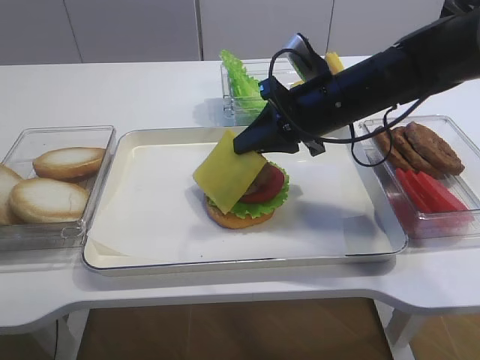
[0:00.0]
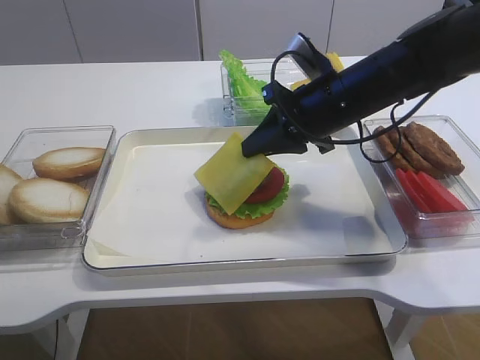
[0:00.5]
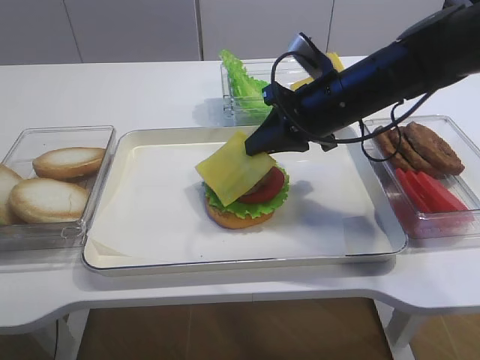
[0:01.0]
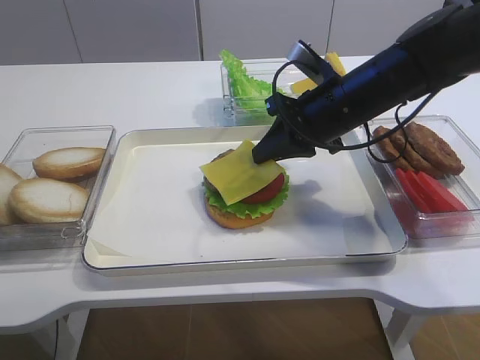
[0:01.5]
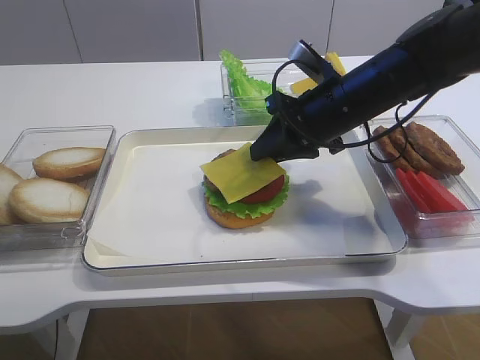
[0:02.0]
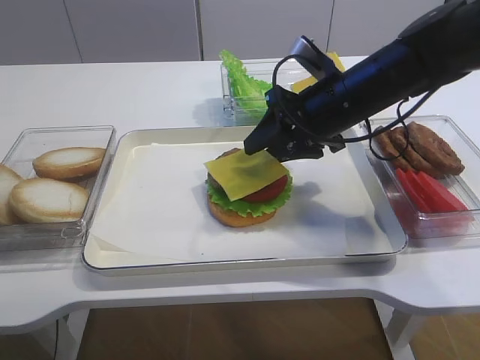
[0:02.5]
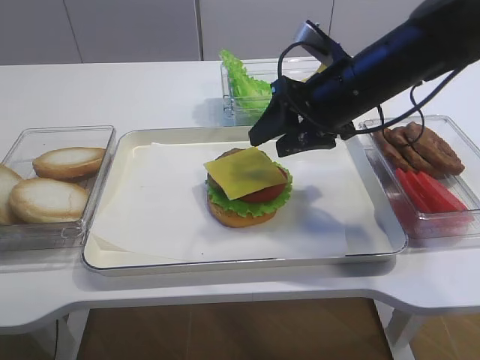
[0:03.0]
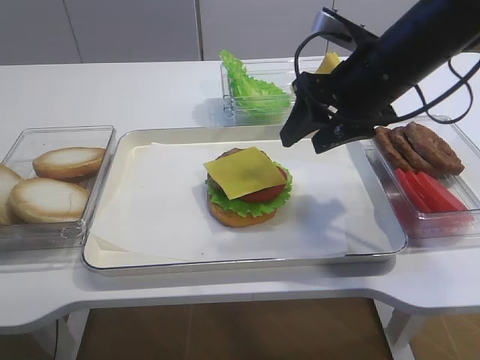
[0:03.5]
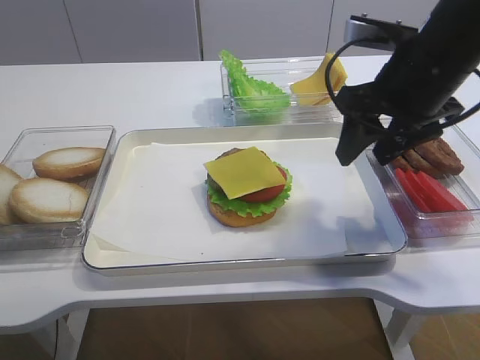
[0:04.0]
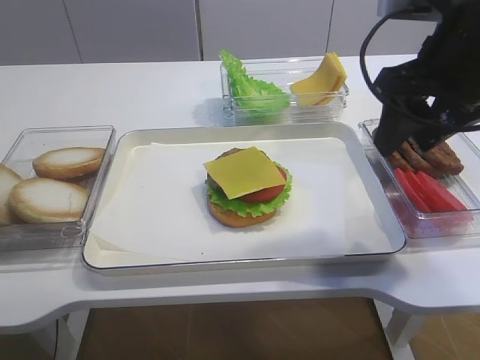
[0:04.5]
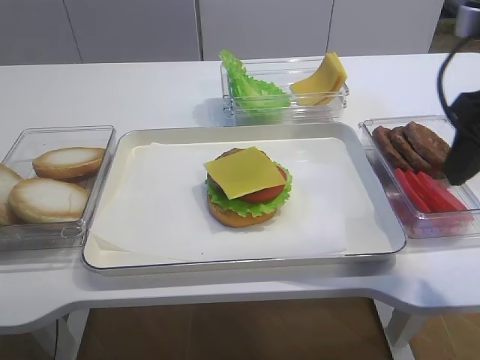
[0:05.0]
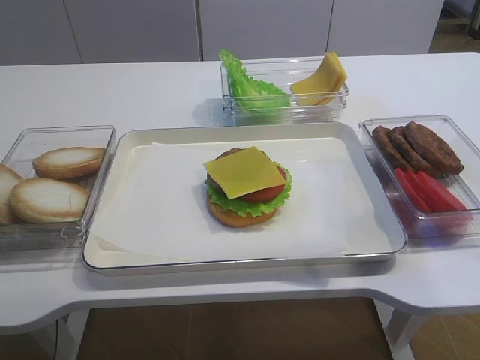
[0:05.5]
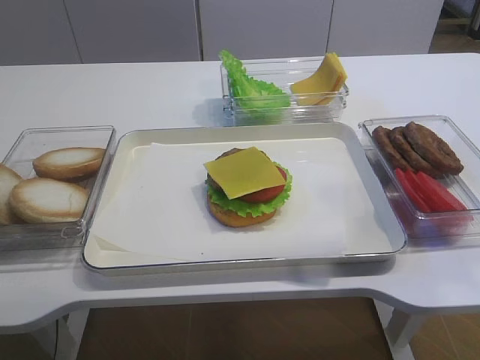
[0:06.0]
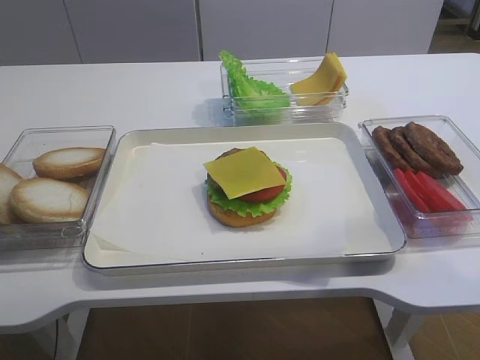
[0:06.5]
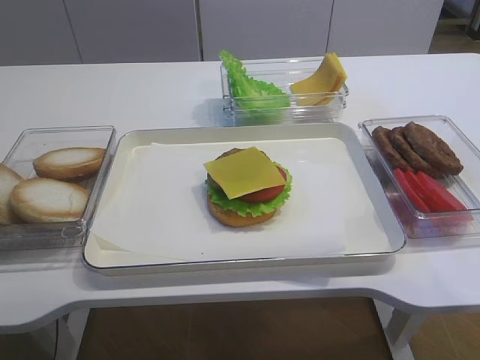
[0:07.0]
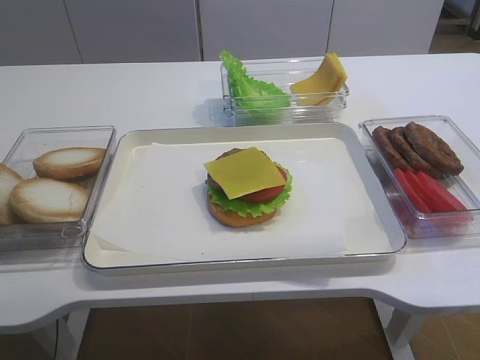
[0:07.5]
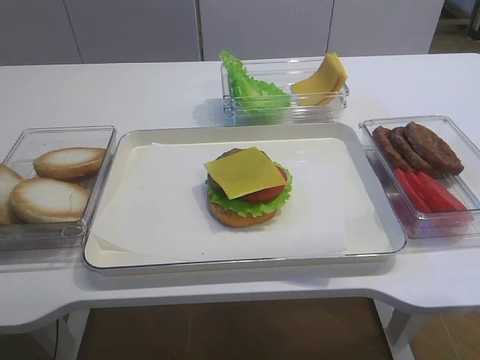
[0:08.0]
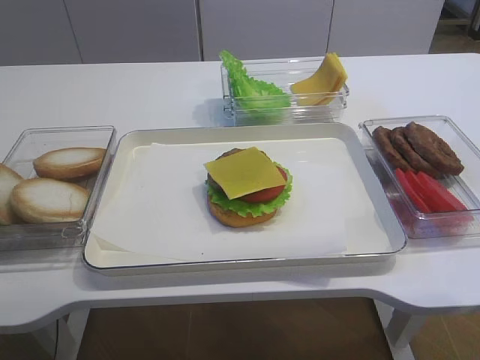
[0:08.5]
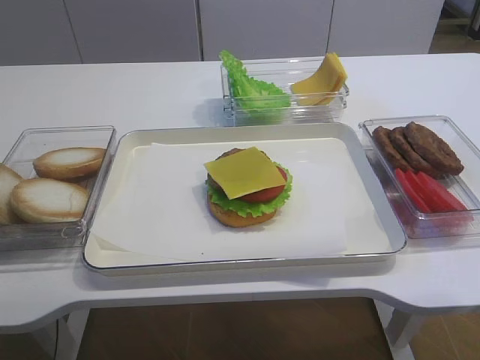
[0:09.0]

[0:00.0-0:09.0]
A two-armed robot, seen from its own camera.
Step, 0:00.0 to 0:03.0: Place the cheese slice on the cutlet with the right gripper.
0:00.0 to 0:02.0: The right gripper opens.
0:02.0 to 0:04.5: The right gripper shifts roughly 15 cm upward, backward and to the right, and opens up.
0:04.5 to 0:07.0: The right gripper goes roughly 30 cm backward.

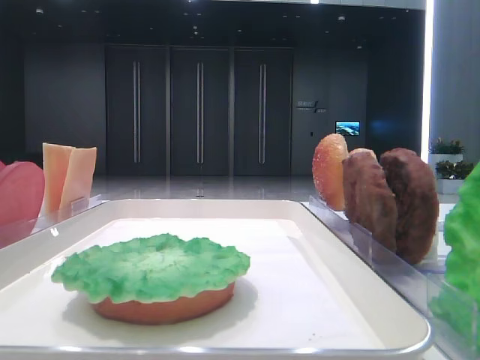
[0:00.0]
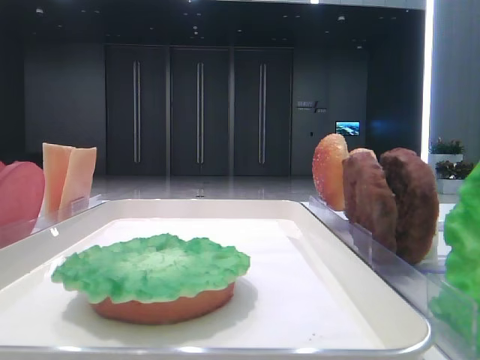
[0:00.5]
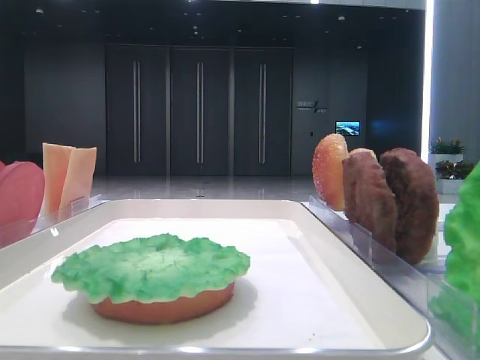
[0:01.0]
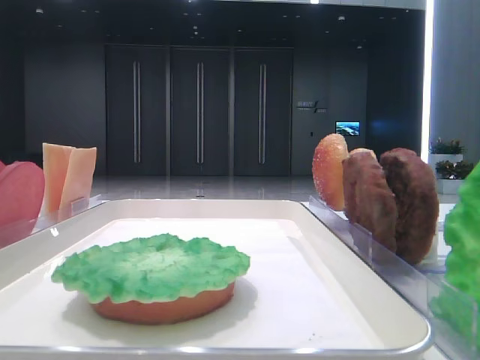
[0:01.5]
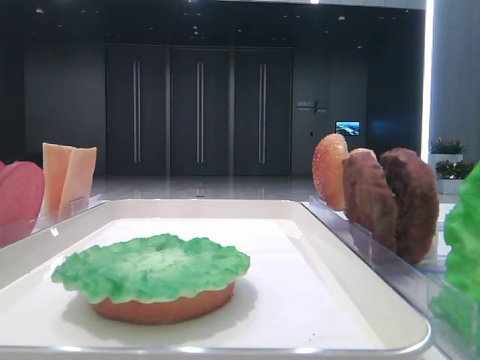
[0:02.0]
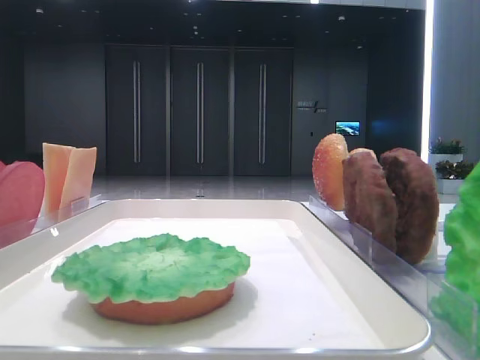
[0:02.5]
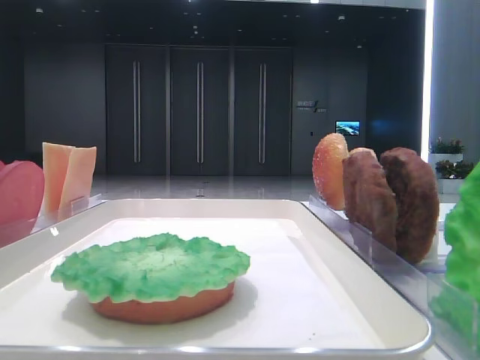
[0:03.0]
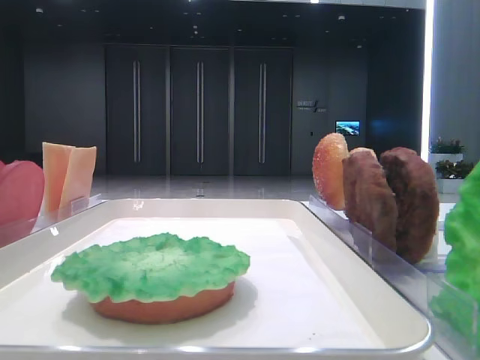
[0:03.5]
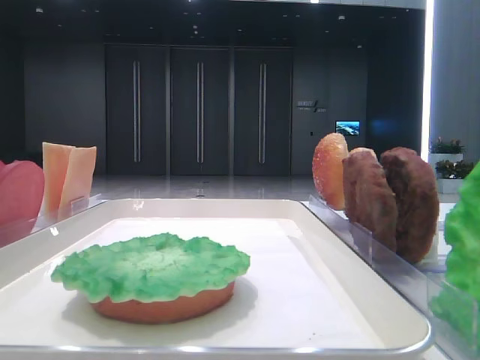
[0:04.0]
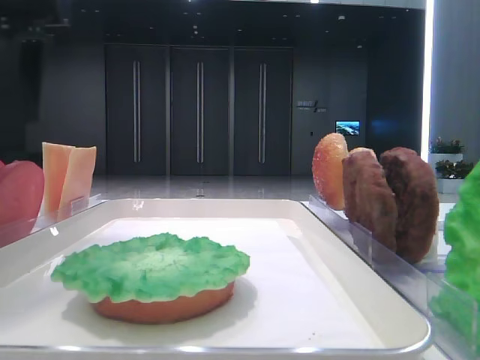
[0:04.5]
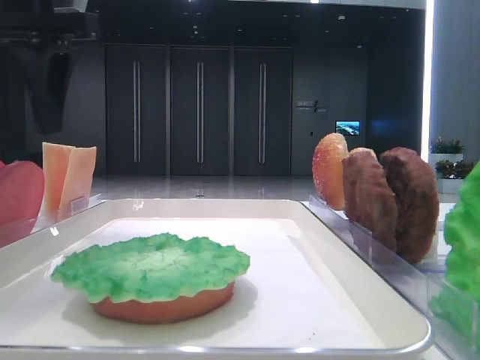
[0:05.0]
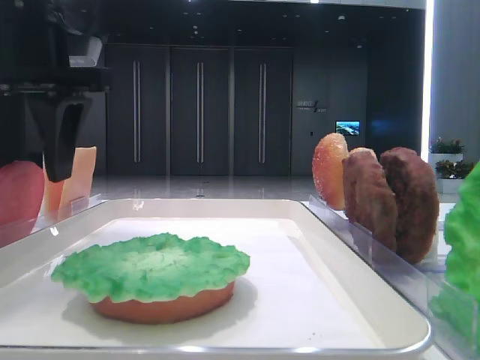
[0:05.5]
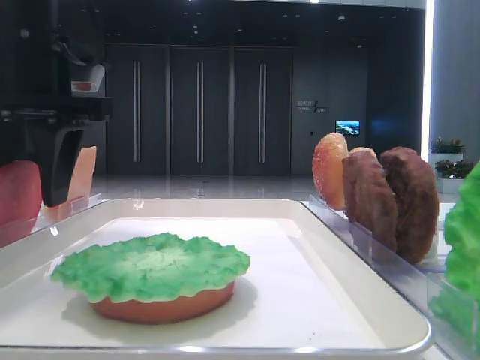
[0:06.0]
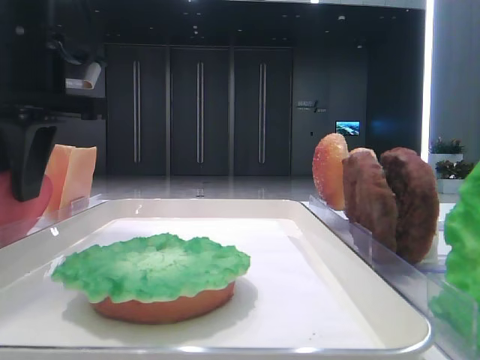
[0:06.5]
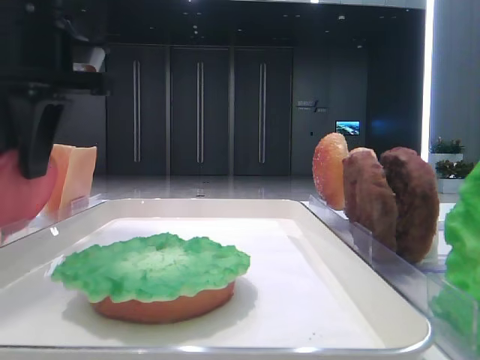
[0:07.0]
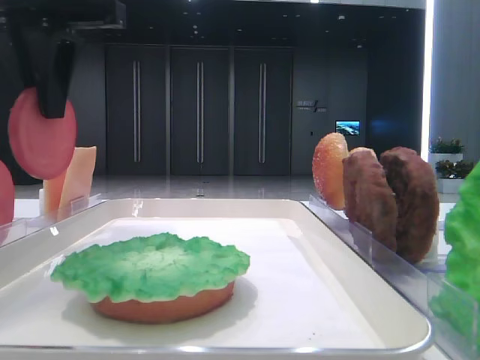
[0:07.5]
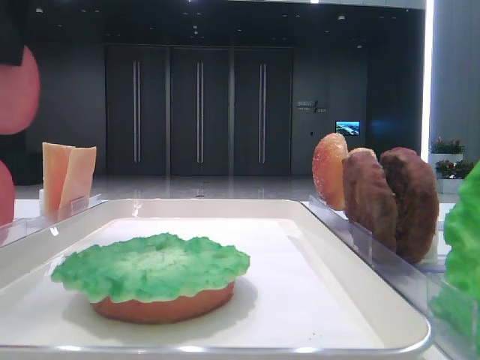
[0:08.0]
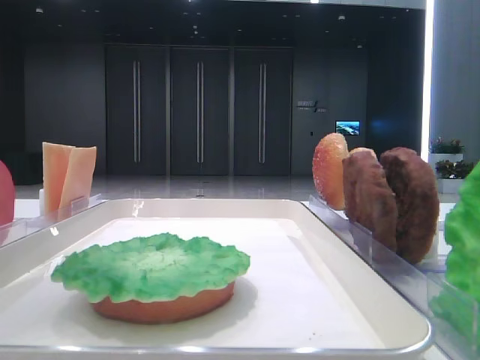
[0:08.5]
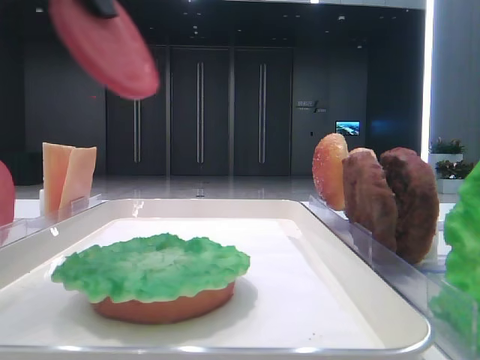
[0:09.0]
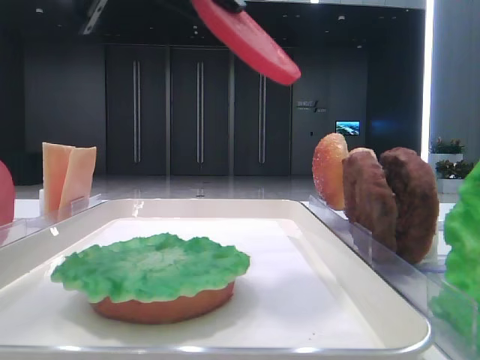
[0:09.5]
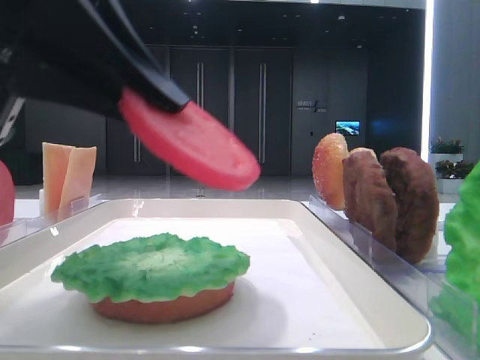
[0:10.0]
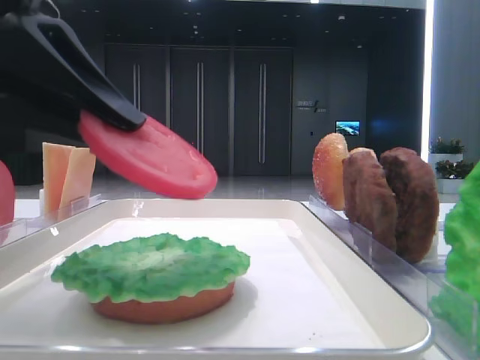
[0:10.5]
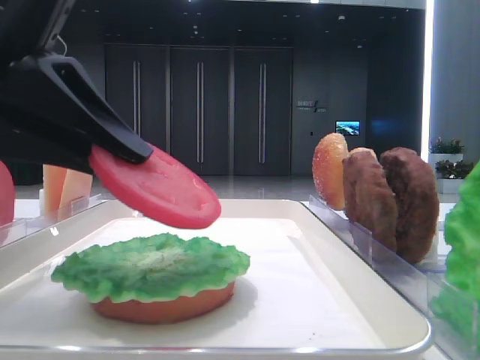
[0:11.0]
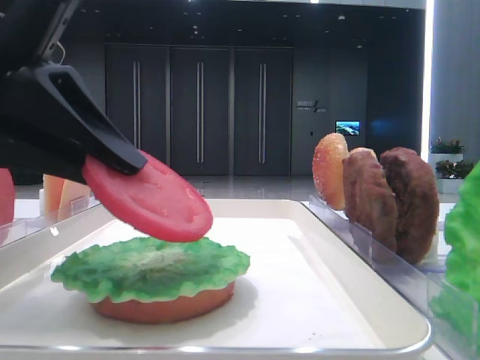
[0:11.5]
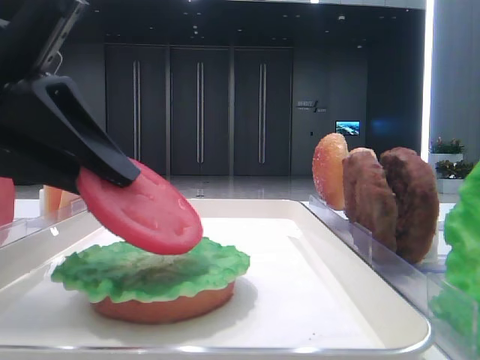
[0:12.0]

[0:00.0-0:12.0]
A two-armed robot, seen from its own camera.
Step, 0:00.0 to 0:06.5: Pick up the tomato slice with the left hand.
0:04.0 to 0:06.0: The left gripper heads to the right and downward, covering roughly 15 cm.
0:06.0 to 0:08.0: The left gripper shifts about 10 cm upward, and closes up.
0:08.0 to 0:10.0: The left gripper heads downward and backward, covering about 15 cm.

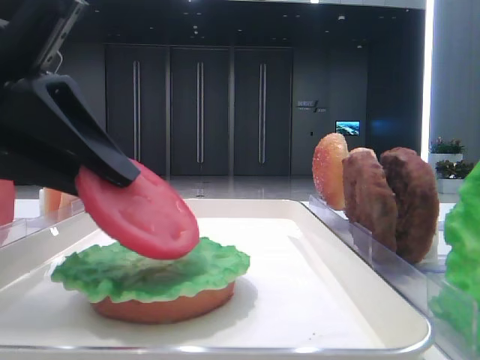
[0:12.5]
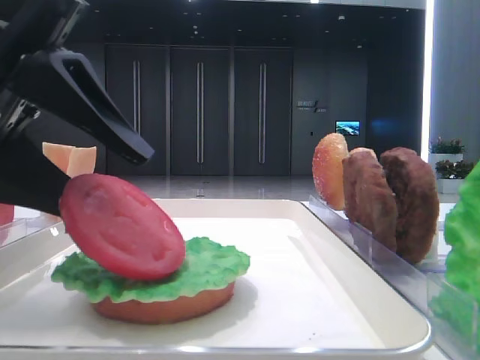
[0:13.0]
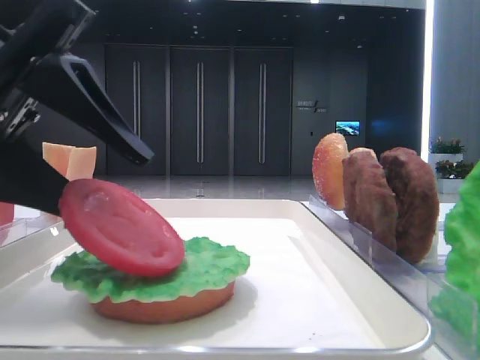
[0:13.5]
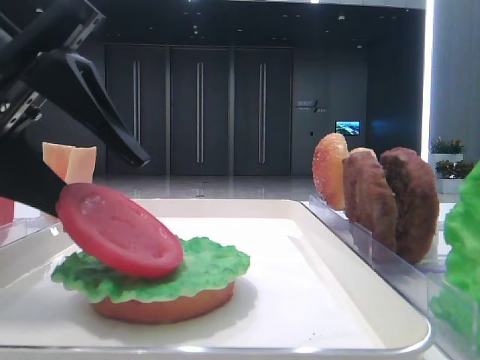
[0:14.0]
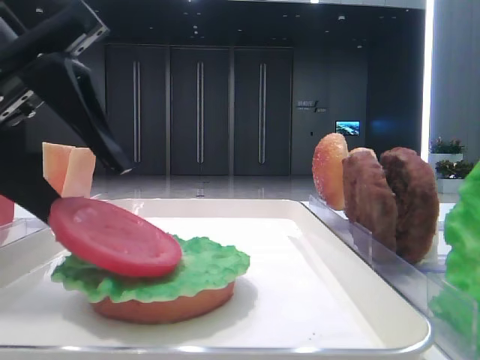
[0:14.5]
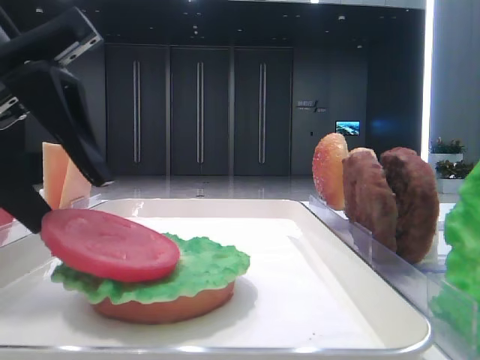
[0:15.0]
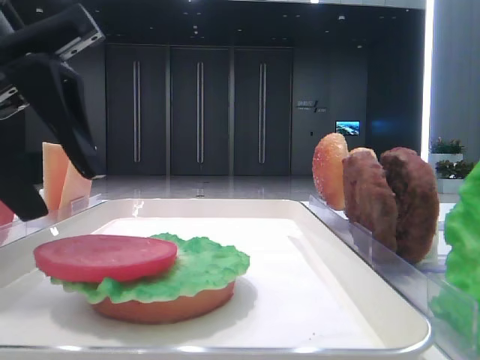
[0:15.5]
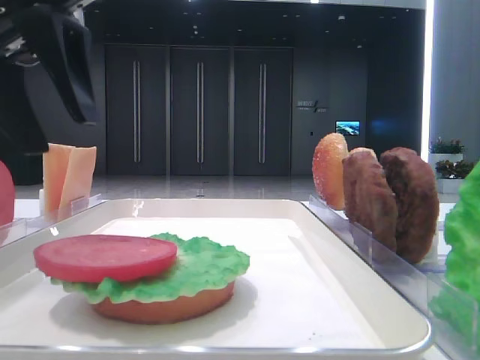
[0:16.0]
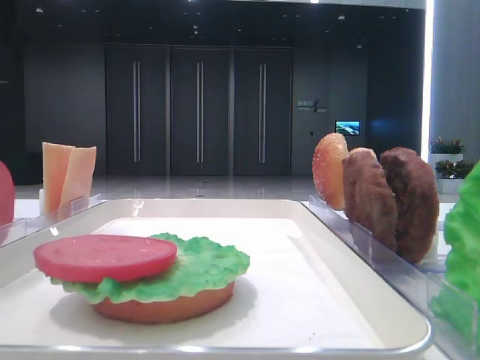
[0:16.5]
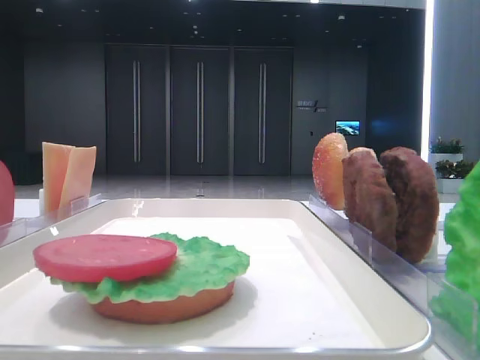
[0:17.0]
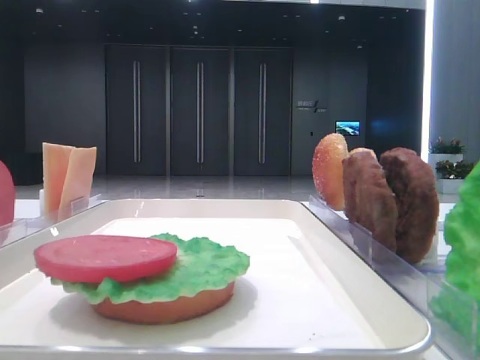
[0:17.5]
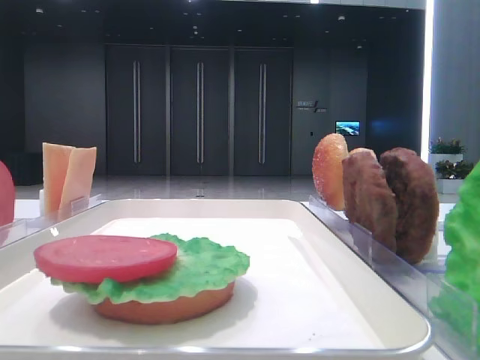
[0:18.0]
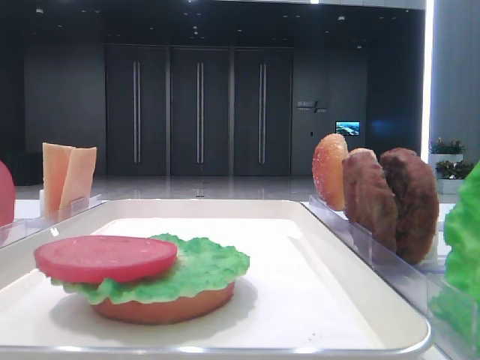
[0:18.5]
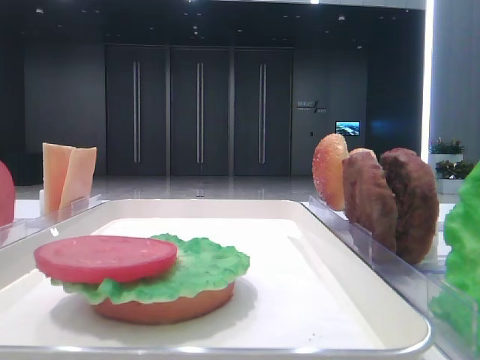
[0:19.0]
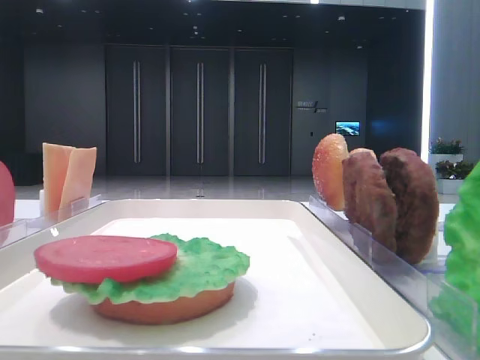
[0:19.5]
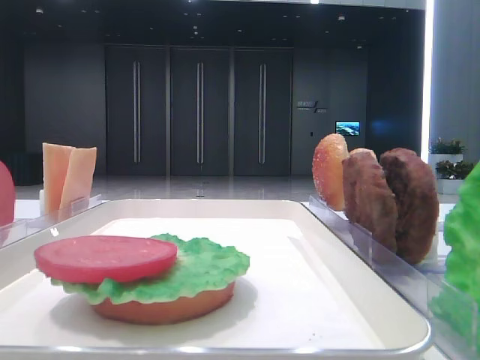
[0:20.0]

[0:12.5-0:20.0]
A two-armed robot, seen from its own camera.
Step, 0:12.5 to 0:15.0: Place the tomato slice on the lettuce leaf with the left hand.
0:12.5 to 0:14.5: The left gripper opens.
0:14.5 to 0:16.5: The left gripper is displaced upward, forward and to the left by about 15 cm.
